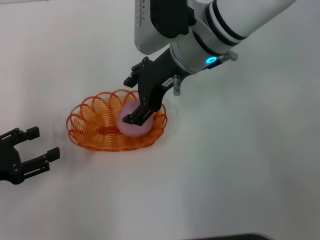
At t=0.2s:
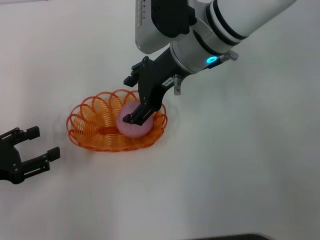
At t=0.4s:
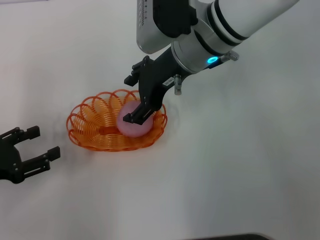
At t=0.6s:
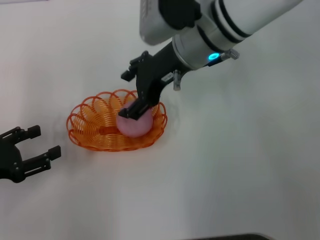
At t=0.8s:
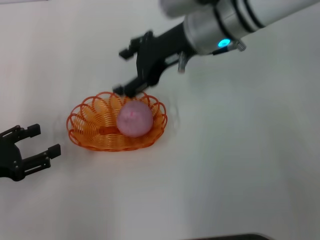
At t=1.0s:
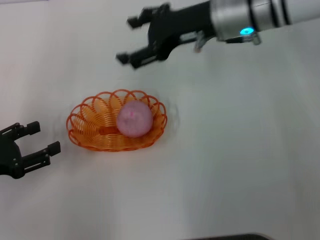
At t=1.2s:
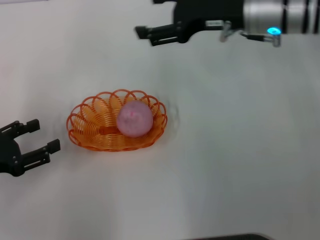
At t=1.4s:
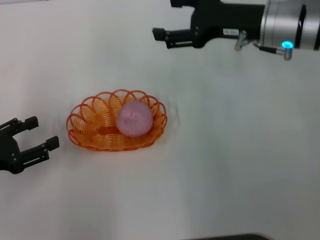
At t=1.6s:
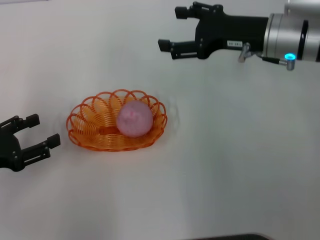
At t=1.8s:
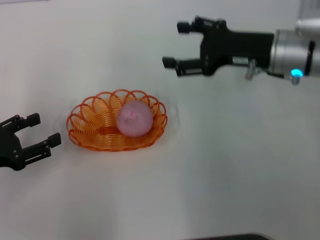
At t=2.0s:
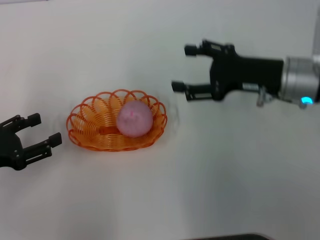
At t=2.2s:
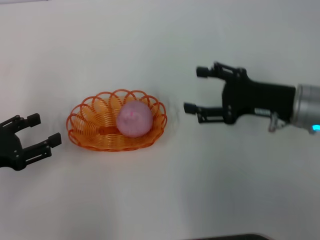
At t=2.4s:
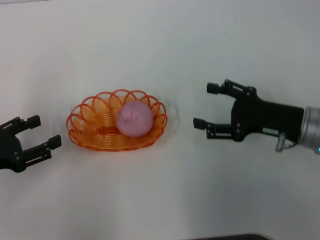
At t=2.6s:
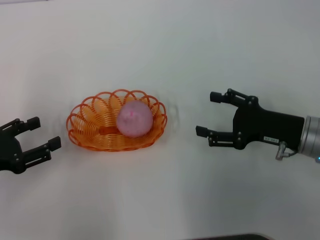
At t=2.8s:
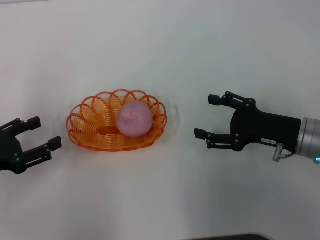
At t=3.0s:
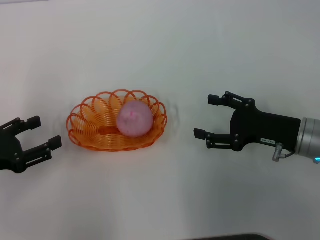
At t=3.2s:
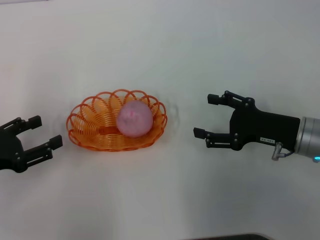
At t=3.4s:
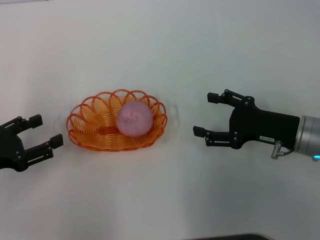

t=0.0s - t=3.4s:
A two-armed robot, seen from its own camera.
t=0.0s - t=1.6s: The right gripper travels to the right by some 15 cm.
t=1.6s - t=3.4s: The right gripper heads backward and downward, covering approximately 15 cm.

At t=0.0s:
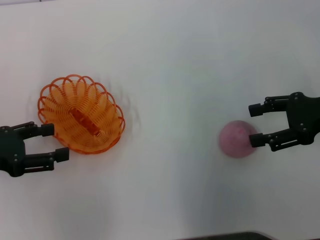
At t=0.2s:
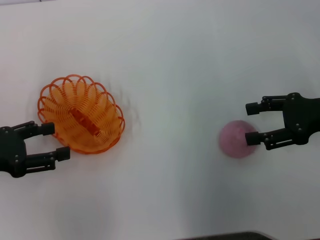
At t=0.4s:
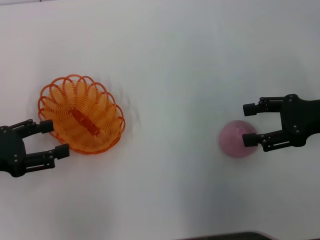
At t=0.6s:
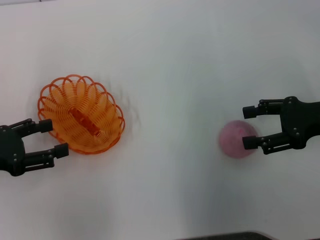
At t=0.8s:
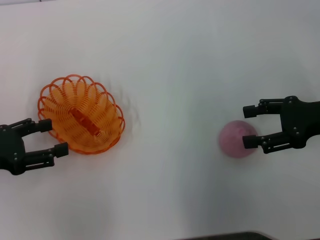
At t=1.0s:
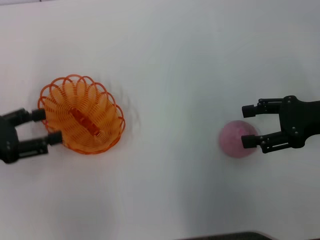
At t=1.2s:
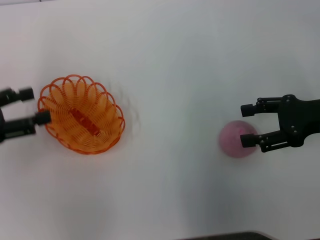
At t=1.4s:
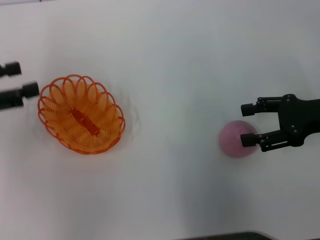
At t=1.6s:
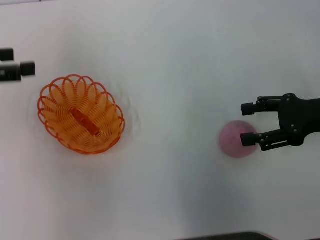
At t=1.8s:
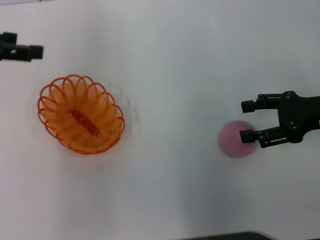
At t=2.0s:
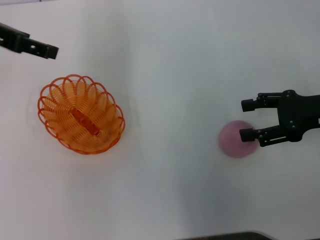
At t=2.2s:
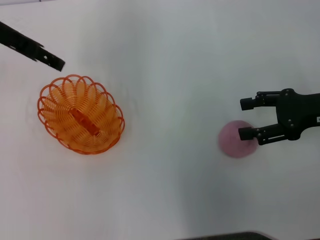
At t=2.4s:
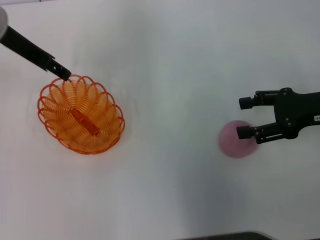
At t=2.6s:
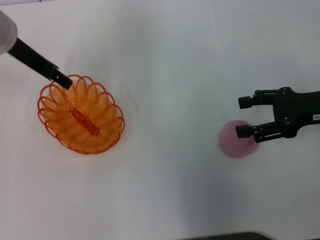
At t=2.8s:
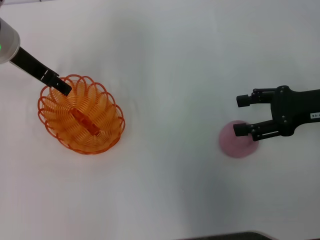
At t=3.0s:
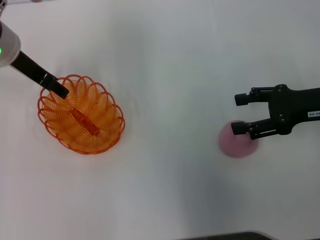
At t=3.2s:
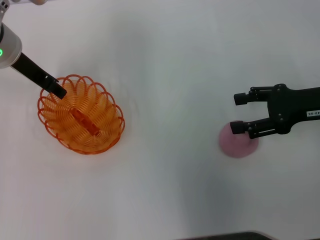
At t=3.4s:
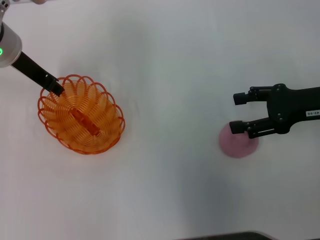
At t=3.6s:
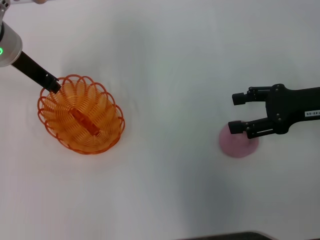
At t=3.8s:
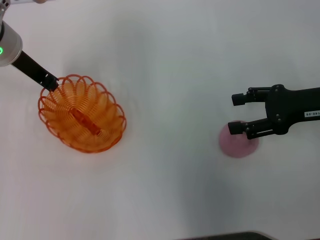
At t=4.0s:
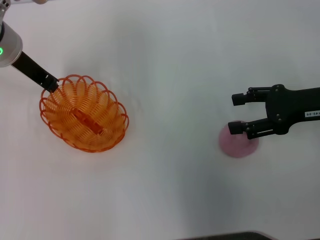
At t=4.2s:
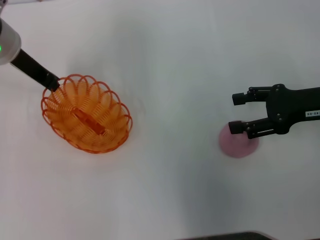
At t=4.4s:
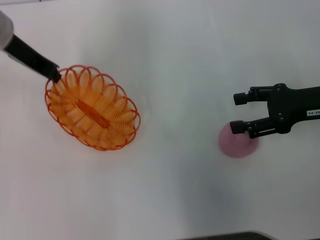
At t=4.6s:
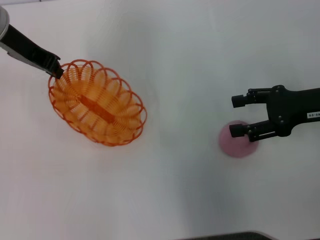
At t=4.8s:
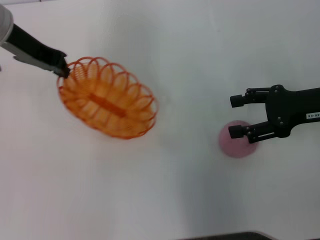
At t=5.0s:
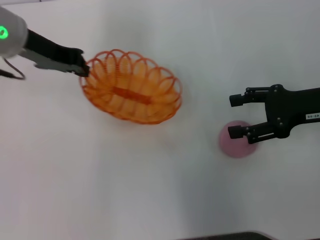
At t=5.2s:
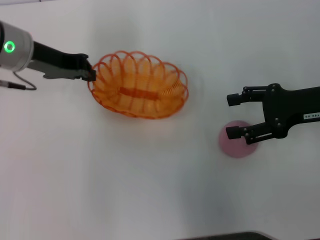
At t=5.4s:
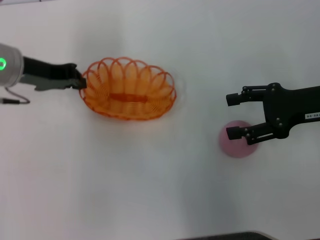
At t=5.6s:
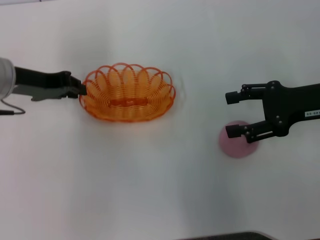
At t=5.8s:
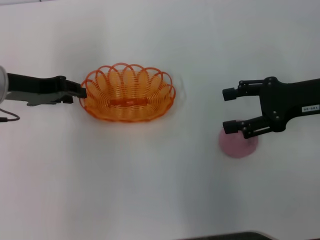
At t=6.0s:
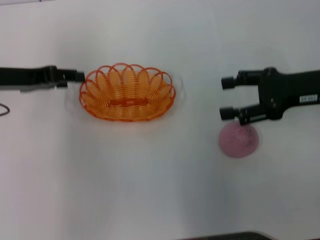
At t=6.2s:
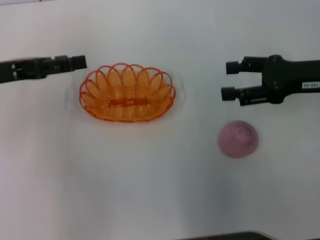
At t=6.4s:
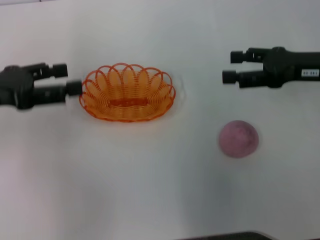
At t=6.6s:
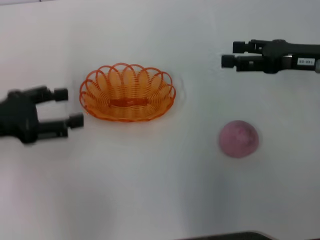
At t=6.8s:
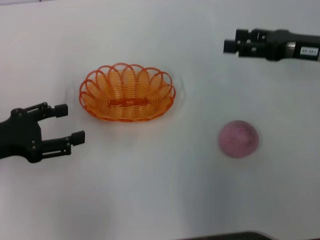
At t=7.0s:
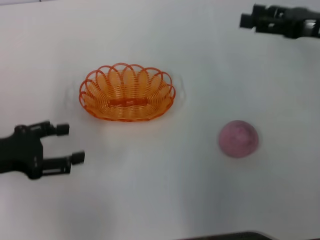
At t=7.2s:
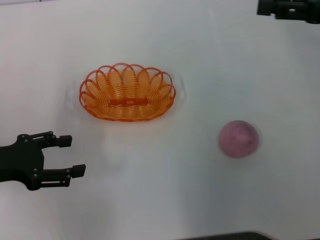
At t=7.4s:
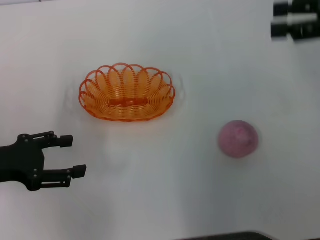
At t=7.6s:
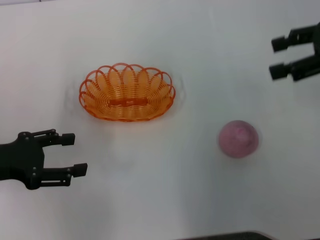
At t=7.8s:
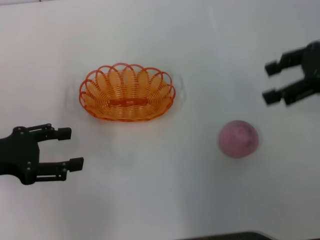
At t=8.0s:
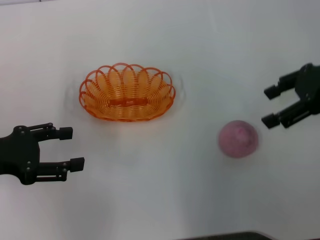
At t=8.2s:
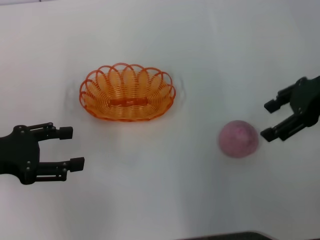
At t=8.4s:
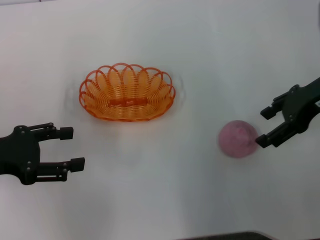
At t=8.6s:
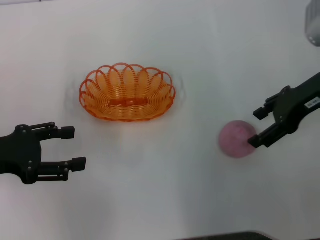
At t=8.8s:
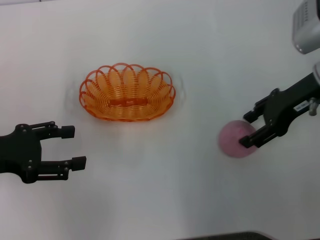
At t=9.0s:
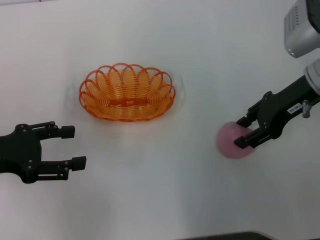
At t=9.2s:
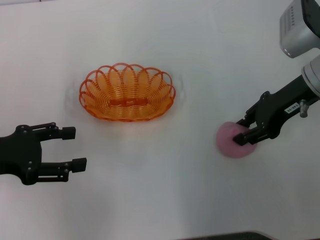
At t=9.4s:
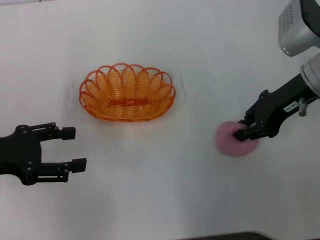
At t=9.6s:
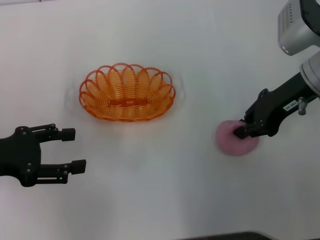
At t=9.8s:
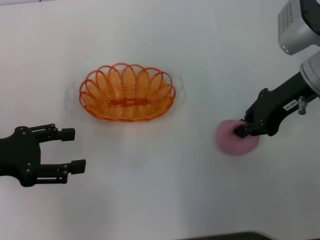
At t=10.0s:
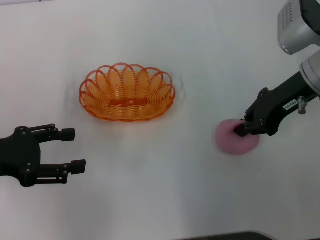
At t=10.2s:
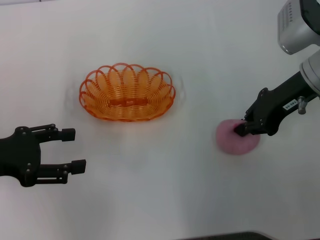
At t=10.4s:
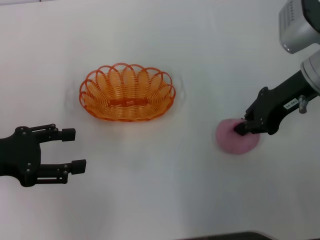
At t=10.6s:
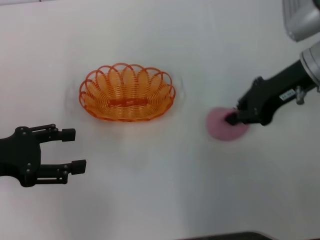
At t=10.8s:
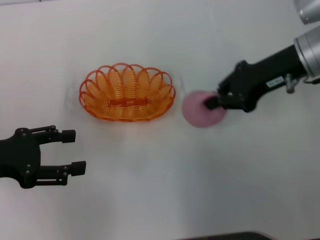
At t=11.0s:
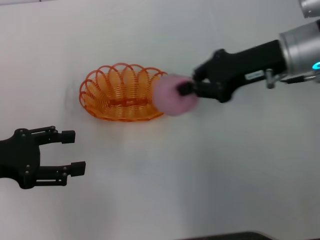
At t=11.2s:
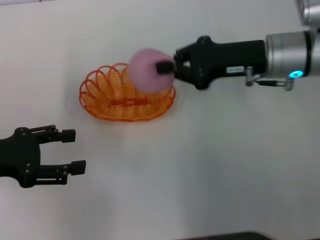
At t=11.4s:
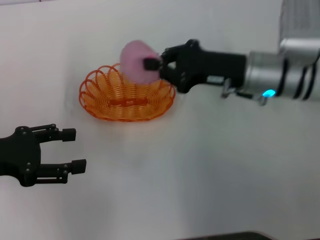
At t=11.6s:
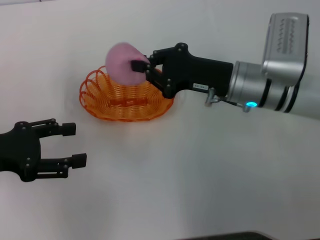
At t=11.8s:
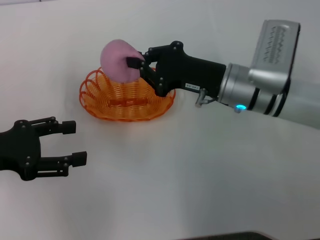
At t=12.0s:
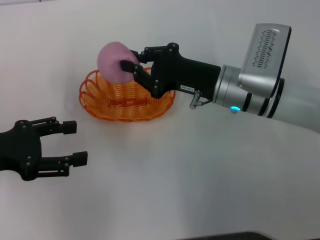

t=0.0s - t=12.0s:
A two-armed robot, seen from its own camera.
Step, t=0.0s - t=4.6s: Pick up the basket with the left gripper.
Step, t=5.0s - t=6.6s: Place the basket in the center of view with the left gripper.
Step, t=7.0s - t=10.6s: Pick up the peach with the right gripper.
t=0.0s - t=1.6s: The left gripper goes some 10 cm upward and forward.
t=1.6s - t=3.0s: The left gripper shifts roughly 15 cm to the right and forward.
t=3.0s - t=4.4s: The left gripper closes.
t=4.4s - t=6.0s: The left gripper moves backward, downward and to the left, approximately 10 cm, and opens up.
t=6.0s - t=7.6s: The right gripper shifts roughly 10 cm upward. The left gripper moves backward, some 10 cm, and opens.
t=7.6s - t=9.0s: The right gripper heads downward and to the left, covering roughly 10 cm.
t=9.0s - t=10.4s: The right gripper closes.
t=10.4s - t=12.0s: The right gripper goes about 15 cm to the left and downward.

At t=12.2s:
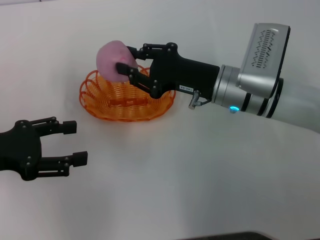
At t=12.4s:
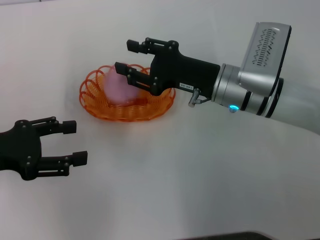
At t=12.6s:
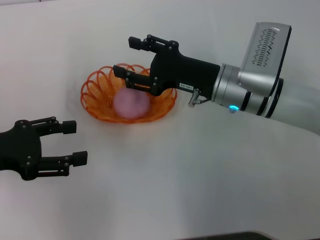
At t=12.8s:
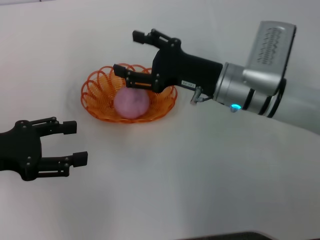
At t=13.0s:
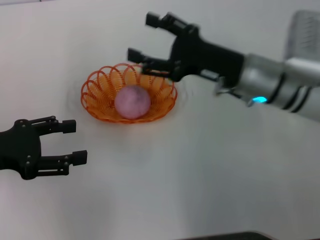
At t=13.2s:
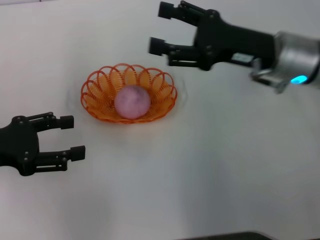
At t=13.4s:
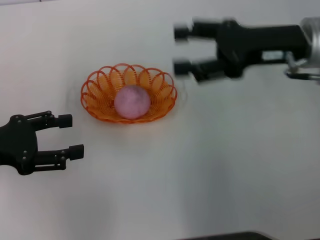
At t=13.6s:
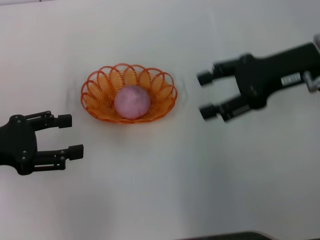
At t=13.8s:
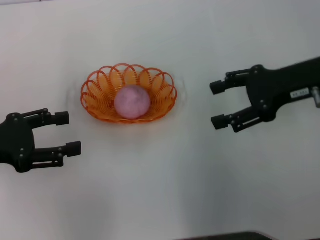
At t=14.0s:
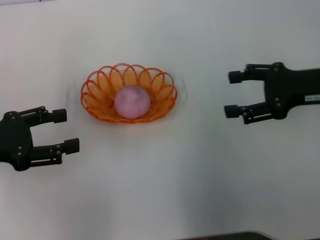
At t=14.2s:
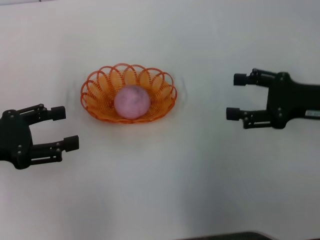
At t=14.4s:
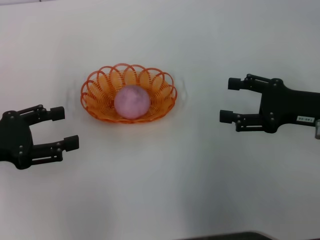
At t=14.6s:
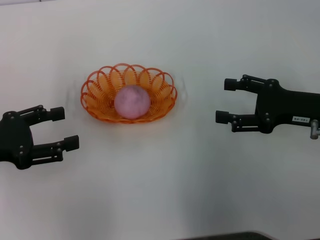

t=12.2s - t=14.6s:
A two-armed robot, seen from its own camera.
t=12.2s - t=13.4s: The right gripper travels upward and to the right by roughly 15 cm, and opens.
t=13.4s - t=14.6s: The right gripper is displaced downward, backward and to the right by approximately 10 cm.
